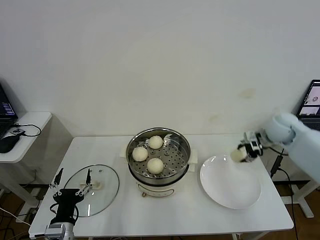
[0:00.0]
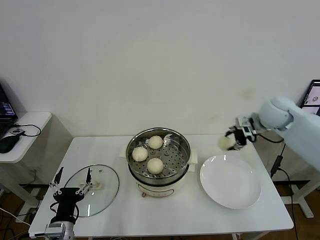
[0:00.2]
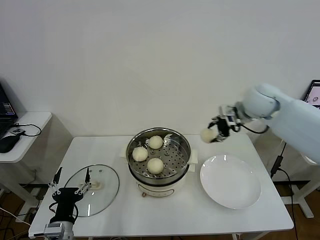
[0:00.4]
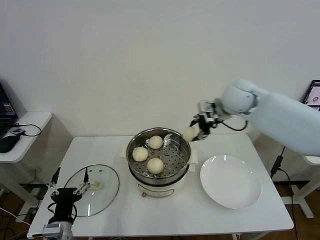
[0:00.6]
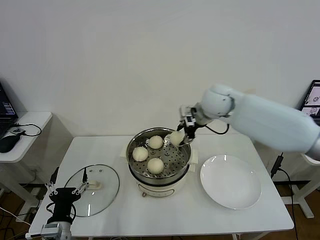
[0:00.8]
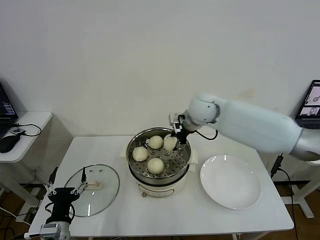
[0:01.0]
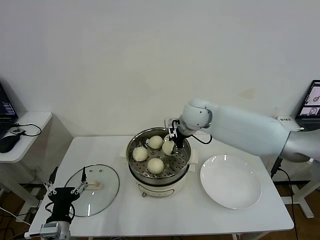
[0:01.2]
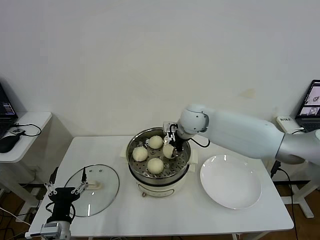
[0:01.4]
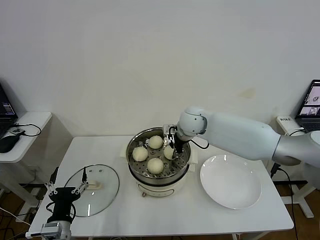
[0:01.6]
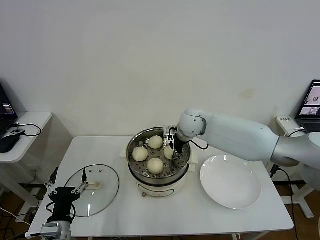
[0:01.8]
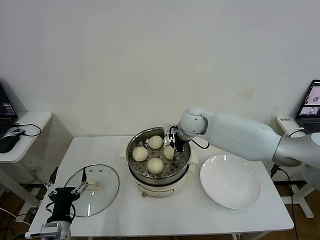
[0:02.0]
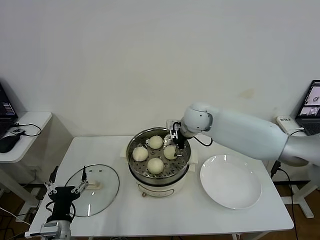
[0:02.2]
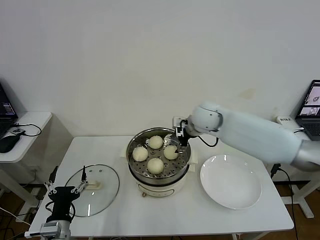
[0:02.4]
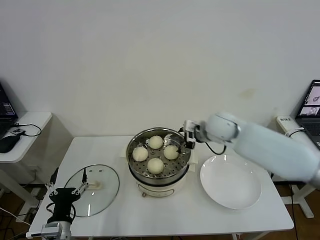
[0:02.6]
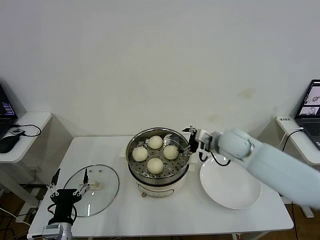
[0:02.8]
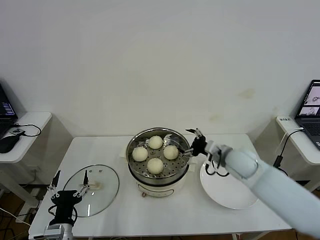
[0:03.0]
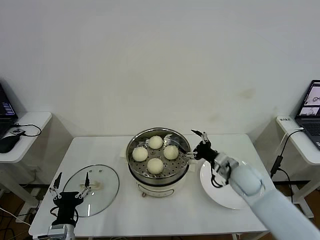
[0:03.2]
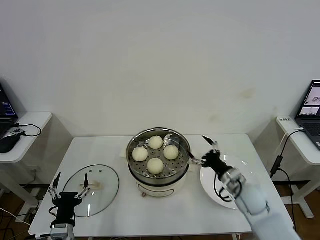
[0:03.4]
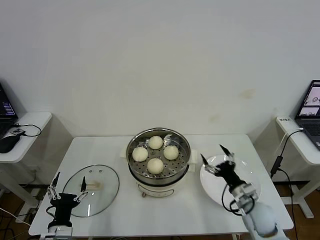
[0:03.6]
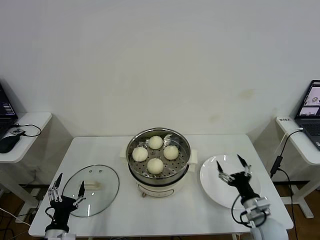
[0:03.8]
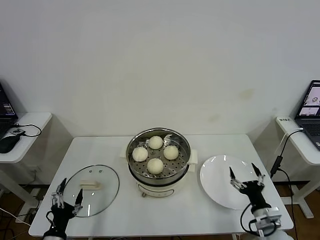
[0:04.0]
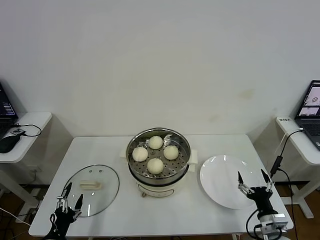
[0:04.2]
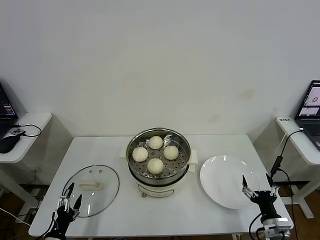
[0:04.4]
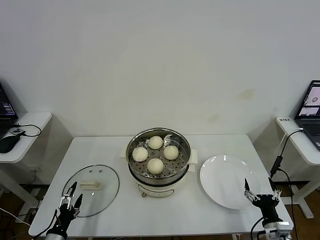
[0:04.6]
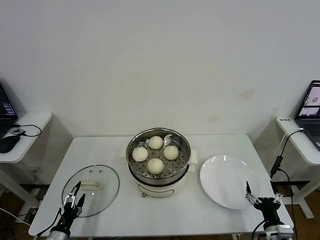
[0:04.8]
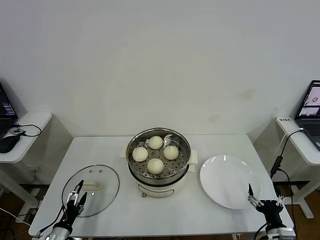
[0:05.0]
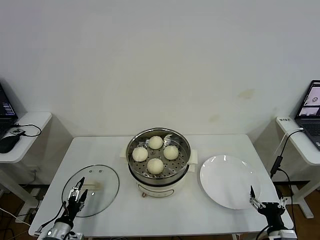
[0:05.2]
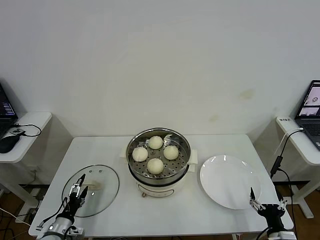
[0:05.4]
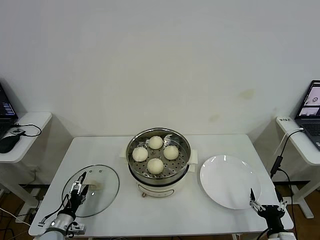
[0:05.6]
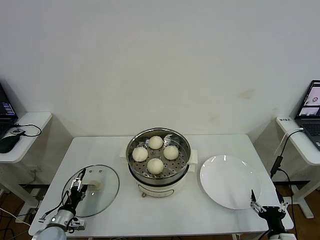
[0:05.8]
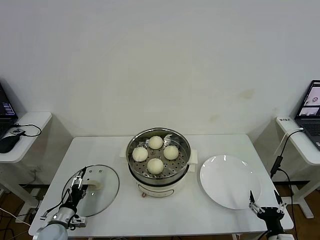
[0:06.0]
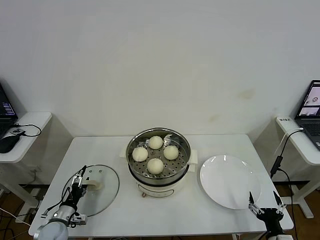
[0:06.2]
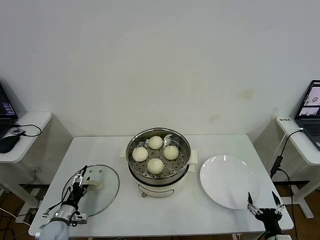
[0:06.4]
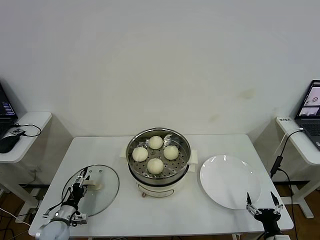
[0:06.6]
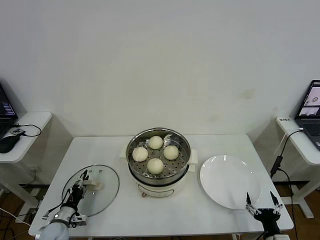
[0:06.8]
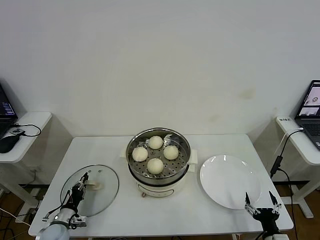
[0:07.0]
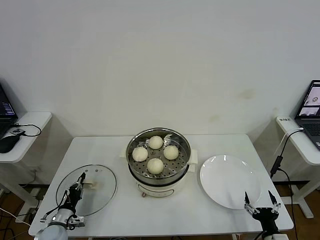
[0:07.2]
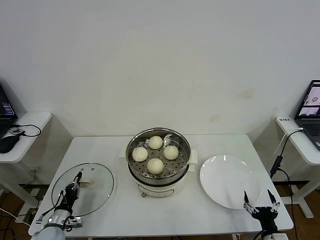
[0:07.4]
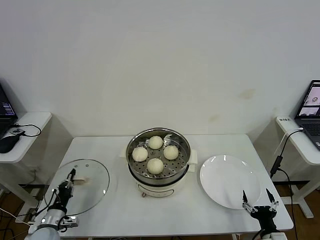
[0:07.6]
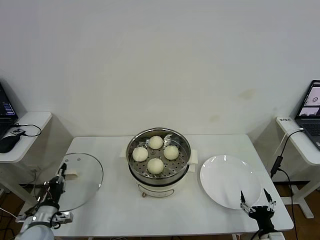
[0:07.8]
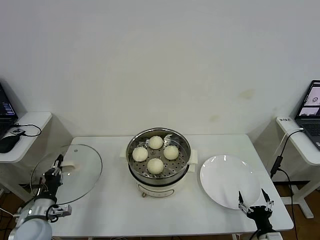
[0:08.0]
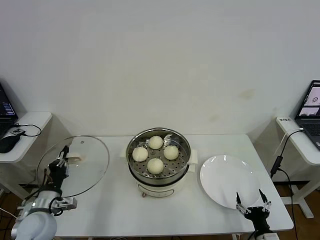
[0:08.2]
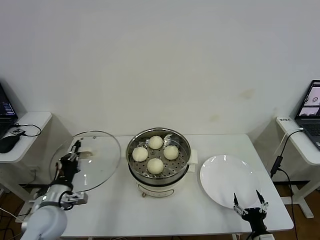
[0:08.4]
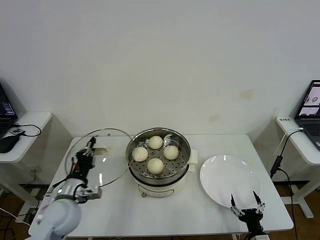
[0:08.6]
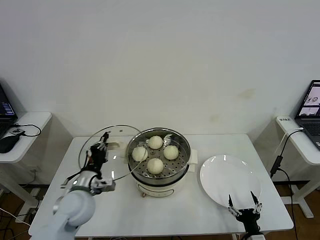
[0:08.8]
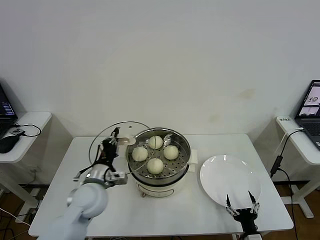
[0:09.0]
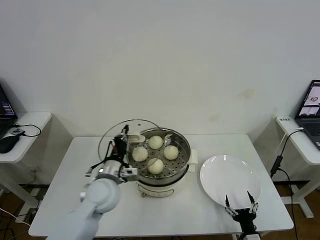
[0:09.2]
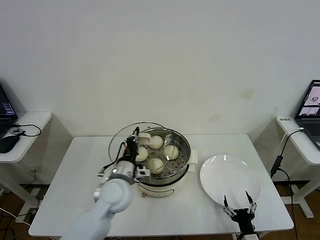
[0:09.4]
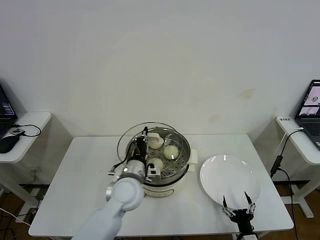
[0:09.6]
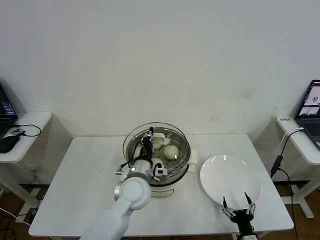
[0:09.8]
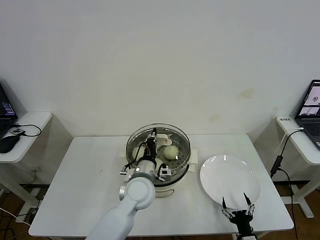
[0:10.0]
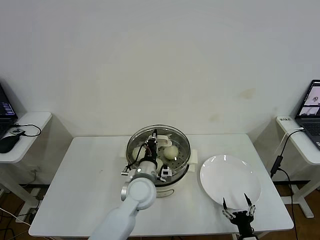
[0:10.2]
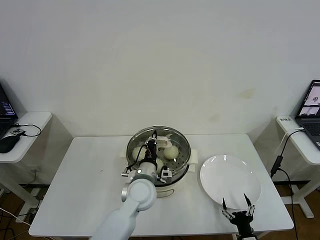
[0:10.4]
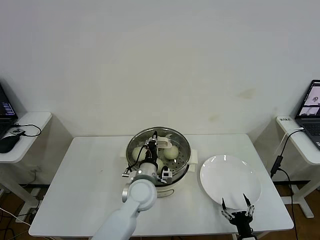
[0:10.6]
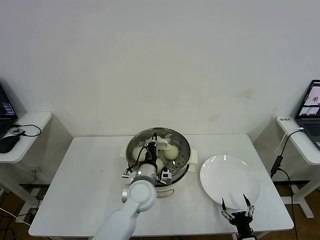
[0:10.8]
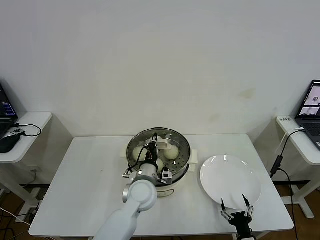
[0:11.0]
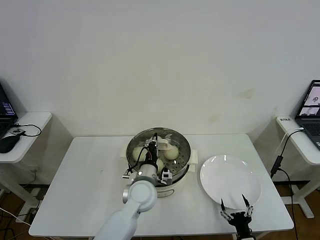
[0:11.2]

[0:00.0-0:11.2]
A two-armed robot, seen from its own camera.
Step, 0.0 to 2.2 s: Place the baozi on the steamer with right gripper.
Step, 2.4 to 7.2 s: Grasp the pot lid with left gripper.
0.0 to 1.6 s: The right gripper shifts approximately 30 cm to the left.
1.6 to 3.2 s: The right gripper heads to the right, backward and downward, covering roughly 25 cm, and opens.
3.2 to 4.8 s: The right gripper heads backward, downward and to the right, covering about 25 cm. The left gripper heads to the left and downward, covering some 10 cm.
4.8 to 6.4 s: The left gripper shifts some 10 cm forward.
6.4 to 8.0 s: The left gripper shifts roughly 10 cm upward, and closes up.
8.0 to 9.6 s: The left gripper goes some 30 cm to the right. Meanwhile the right gripper shifts by approximately 5 cm.
9.6 to 11.2 s: The left gripper travels to the right by approximately 5 cm.

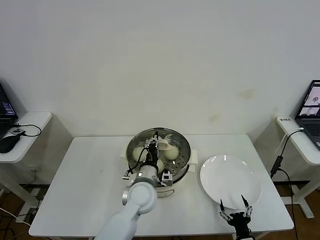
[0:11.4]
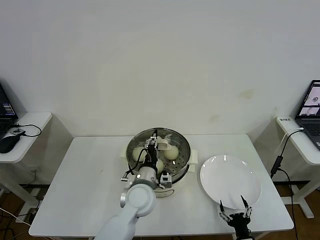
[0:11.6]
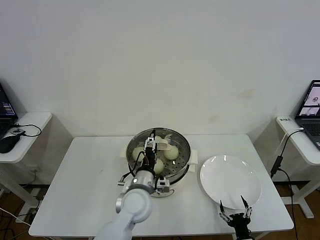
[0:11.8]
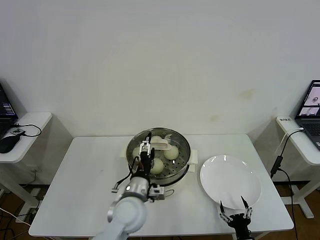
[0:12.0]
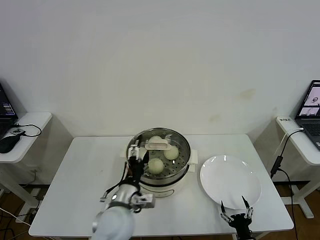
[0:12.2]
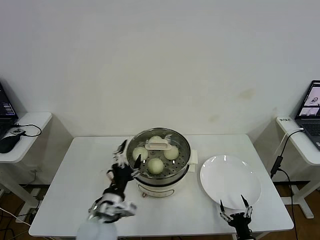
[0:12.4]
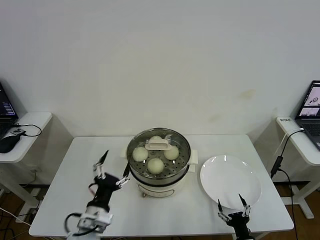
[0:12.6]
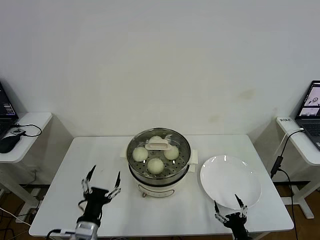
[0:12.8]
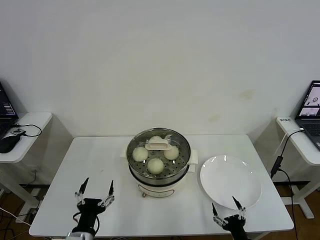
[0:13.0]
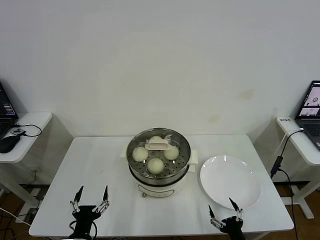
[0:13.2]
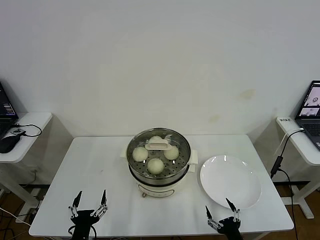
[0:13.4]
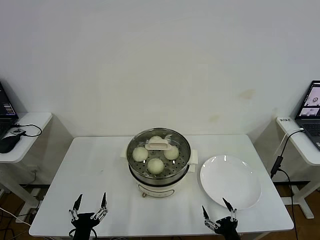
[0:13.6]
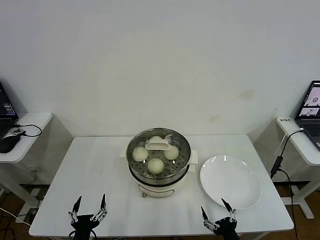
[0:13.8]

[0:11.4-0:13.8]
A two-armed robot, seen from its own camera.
11.4 to 12.6 s: The left gripper travels to the left and backward by some 20 cm, and opens.
12.6 to 13.8 s: The left gripper travels backward, downward and to the left by about 15 cm. Meanwhile the right gripper is displaced upward by roughly 5 cm.

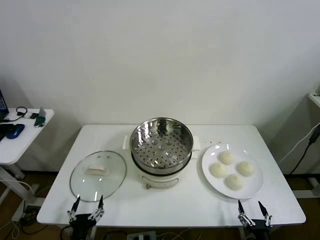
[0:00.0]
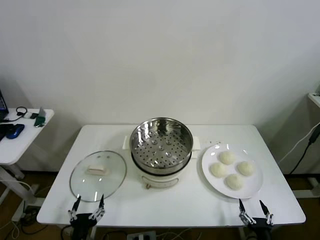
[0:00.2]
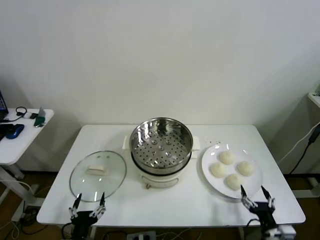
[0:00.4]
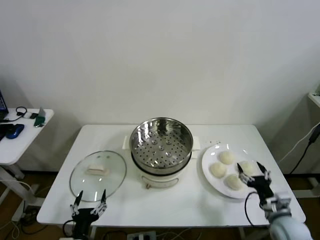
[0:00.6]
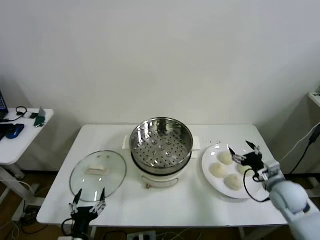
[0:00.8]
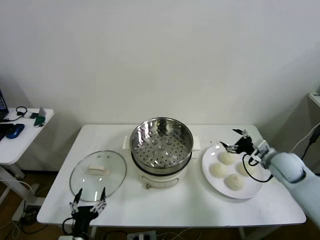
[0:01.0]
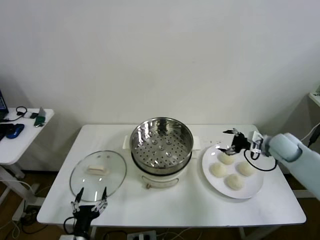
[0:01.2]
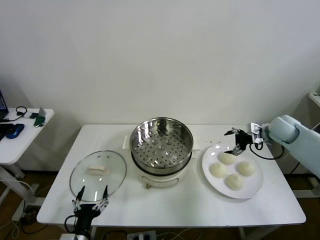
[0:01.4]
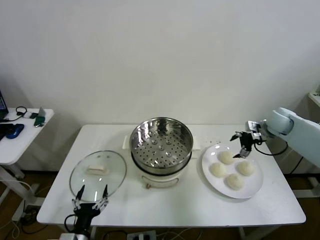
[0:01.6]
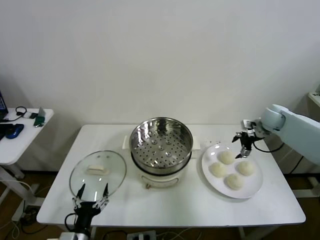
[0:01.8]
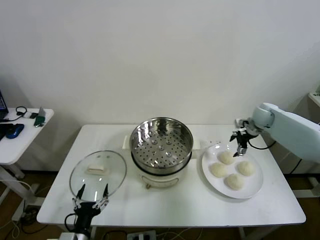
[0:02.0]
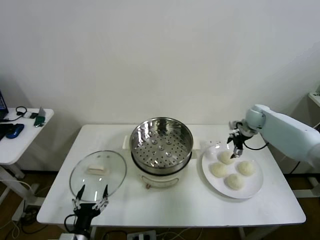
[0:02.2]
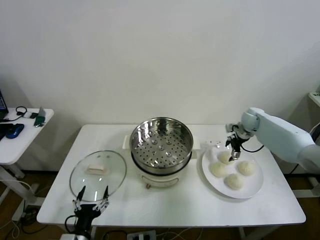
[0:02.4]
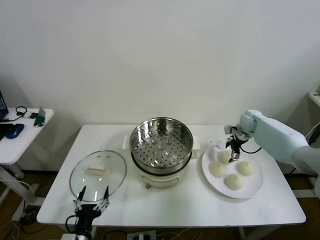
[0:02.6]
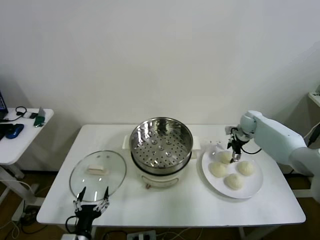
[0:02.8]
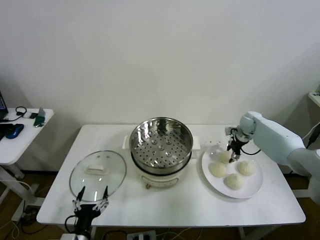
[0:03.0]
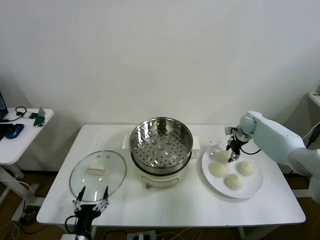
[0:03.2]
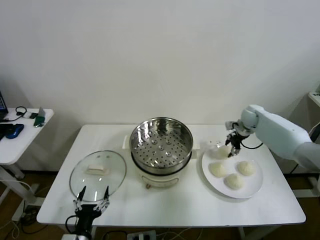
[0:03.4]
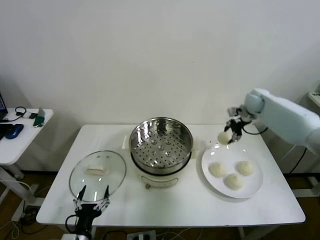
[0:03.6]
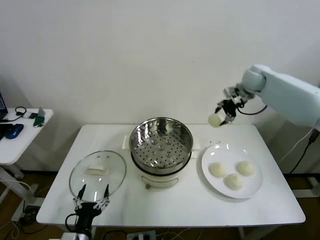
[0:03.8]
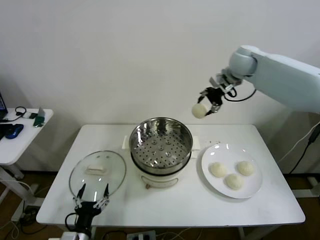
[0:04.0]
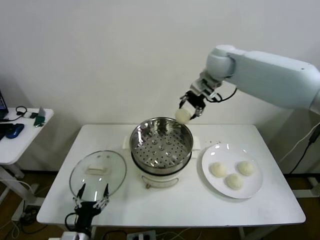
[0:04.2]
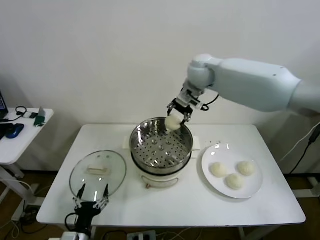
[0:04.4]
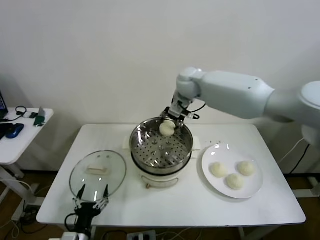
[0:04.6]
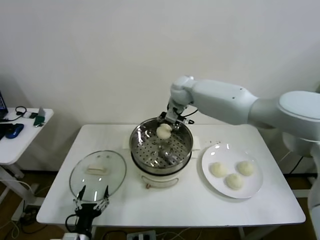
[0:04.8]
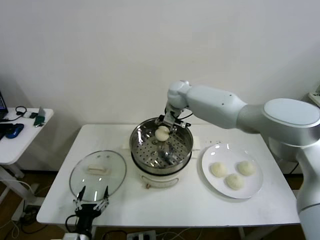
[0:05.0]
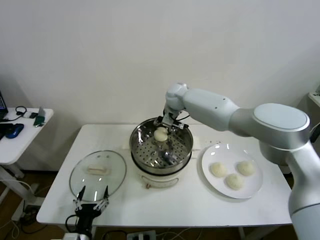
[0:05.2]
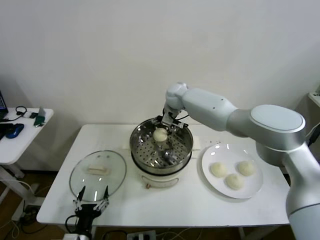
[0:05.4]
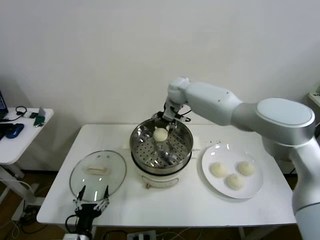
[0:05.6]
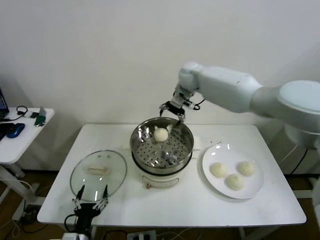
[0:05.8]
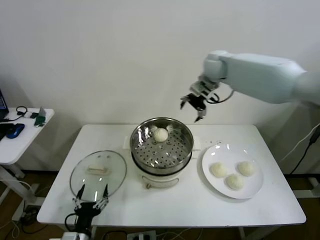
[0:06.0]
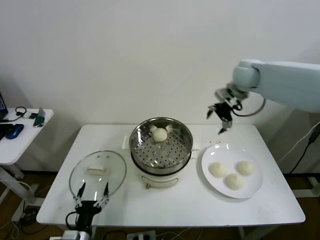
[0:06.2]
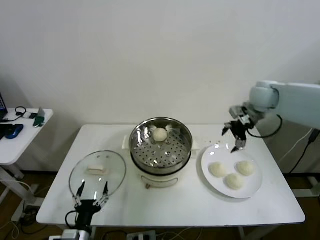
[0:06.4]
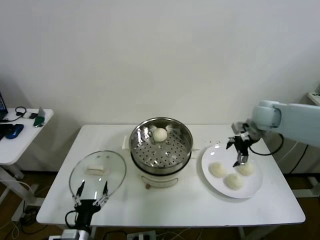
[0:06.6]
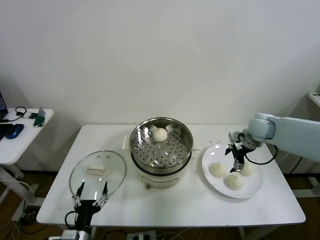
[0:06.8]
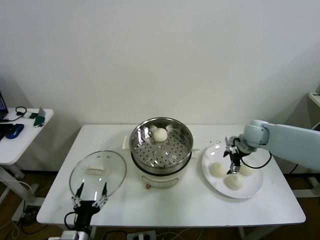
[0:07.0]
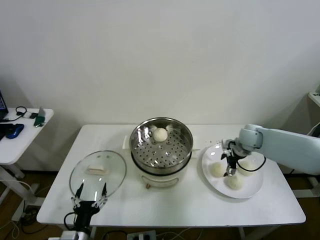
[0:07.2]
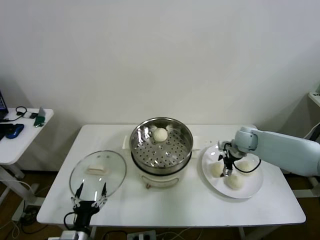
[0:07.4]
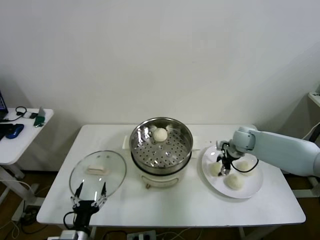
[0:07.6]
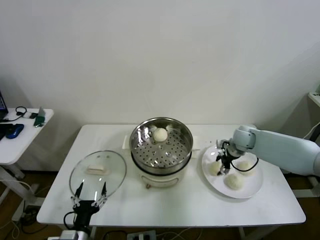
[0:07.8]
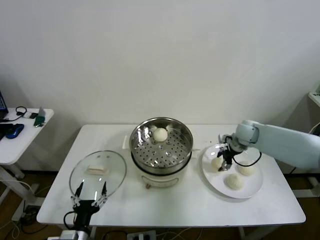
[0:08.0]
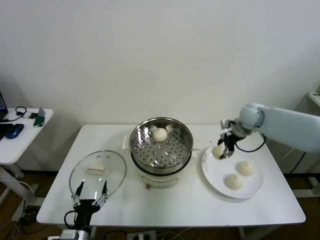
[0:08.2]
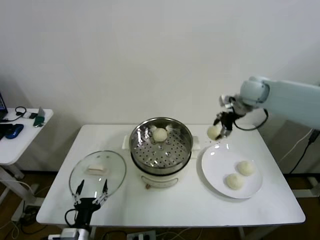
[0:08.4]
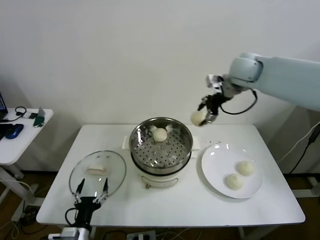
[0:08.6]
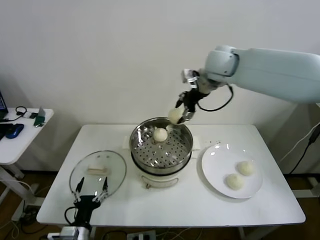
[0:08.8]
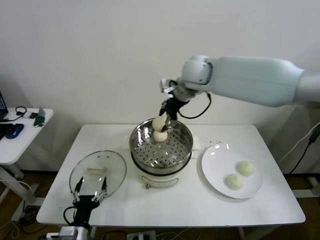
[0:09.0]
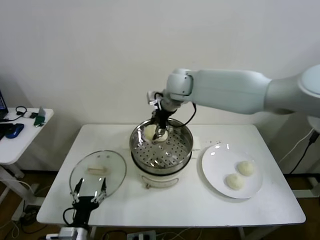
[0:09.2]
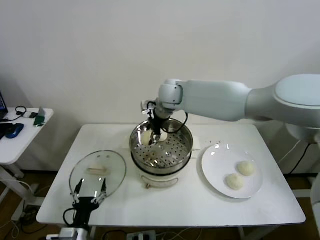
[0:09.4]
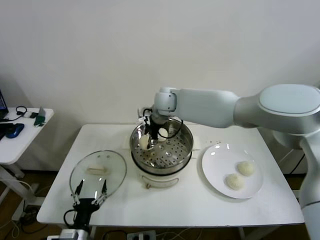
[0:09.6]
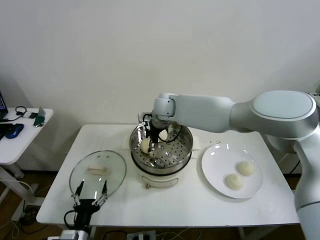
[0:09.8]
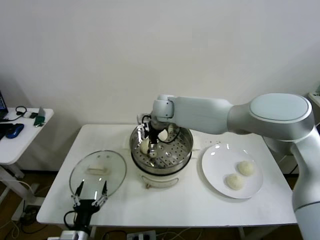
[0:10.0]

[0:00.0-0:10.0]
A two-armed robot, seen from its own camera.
Step, 0.0 to 3.0 s: Grasp the baozi in the plate with right gripper.
Step, 3.2 to 5.4 s: Place the baozi on the steamer with right gripper.
Step, 5.6 to 7.6 s: Grasp the baozi in the plate with right gripper.
Step, 7.8 to 10.0 s: Place the baozi on the steamer with right gripper.
1.4 to 2.8 s: The right gripper is displaced forward and downward by roughly 10 cm, and closes its fingers.
2.8 to 4.2 s: The right gripper moves upward and to the left, about 35 cm, and closes up.
4.2 to 5.8 s: The right gripper goes some 5 cm forward, goes downward and returns, some 15 cm each way, and opens up.
5.8 to 7.2 s: The right gripper travels downward, to the right and backward by roughly 30 cm.
7.2 to 8.6 s: The right gripper shifts about 30 cm upward and to the left, and closes.
8.6 to 10.0 s: The right gripper goes about 25 cm to the left and downward, and opens.
